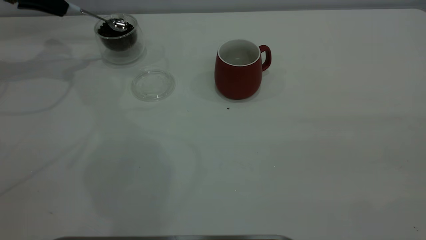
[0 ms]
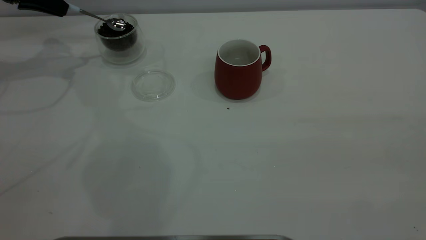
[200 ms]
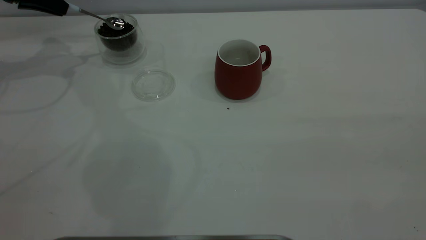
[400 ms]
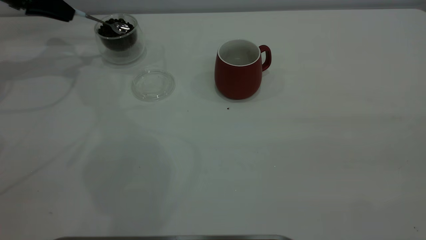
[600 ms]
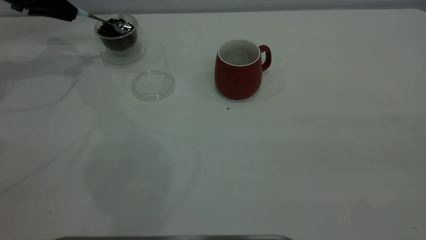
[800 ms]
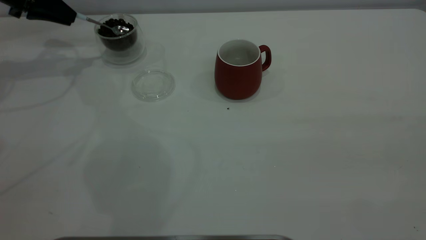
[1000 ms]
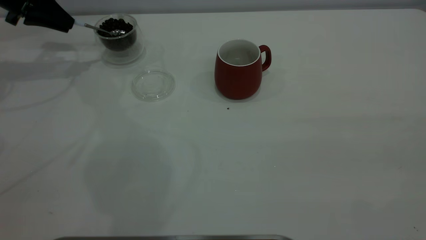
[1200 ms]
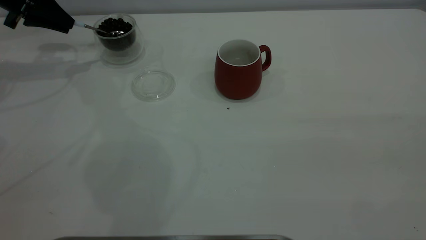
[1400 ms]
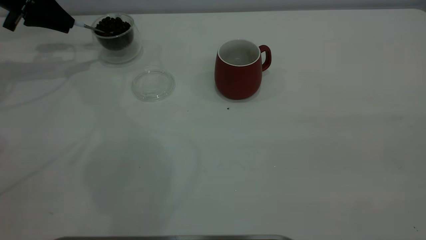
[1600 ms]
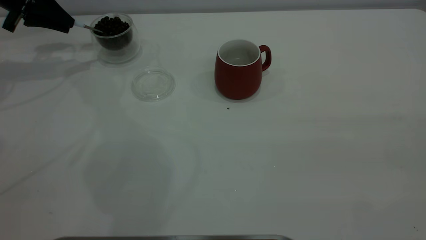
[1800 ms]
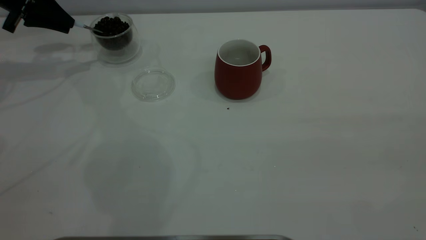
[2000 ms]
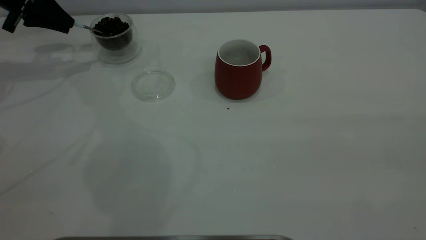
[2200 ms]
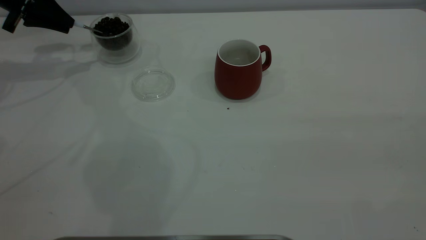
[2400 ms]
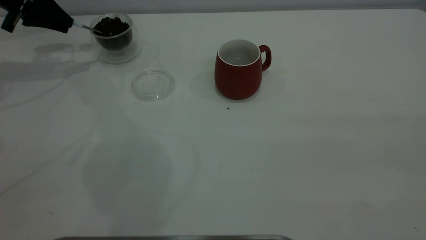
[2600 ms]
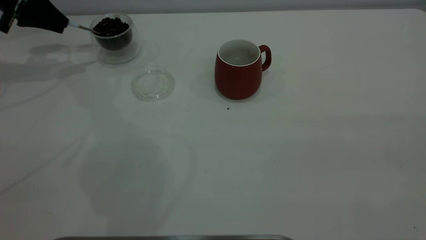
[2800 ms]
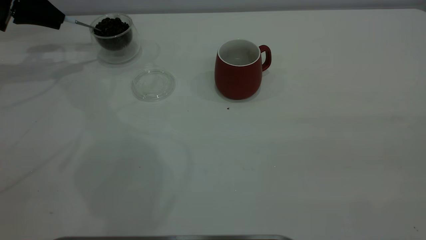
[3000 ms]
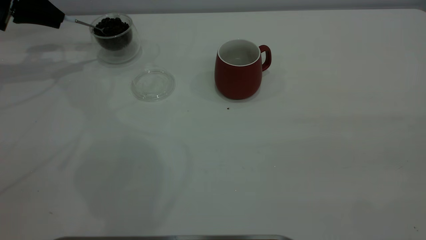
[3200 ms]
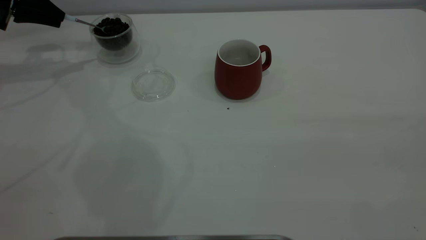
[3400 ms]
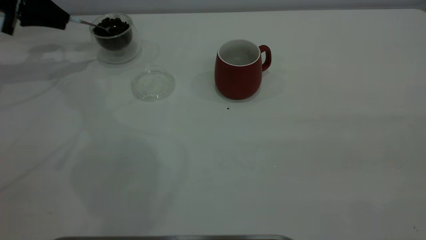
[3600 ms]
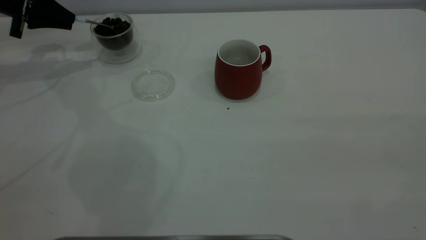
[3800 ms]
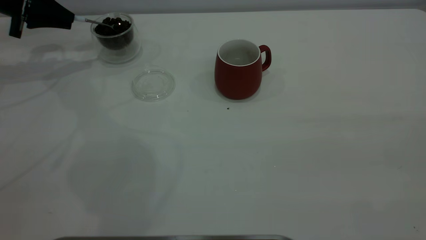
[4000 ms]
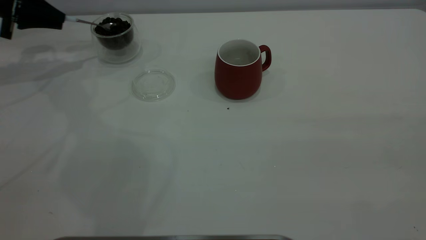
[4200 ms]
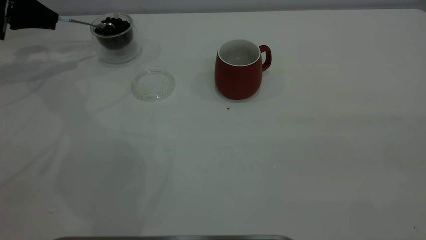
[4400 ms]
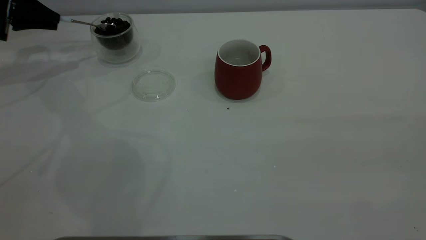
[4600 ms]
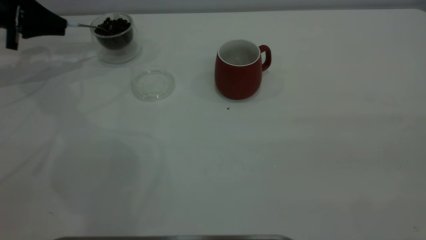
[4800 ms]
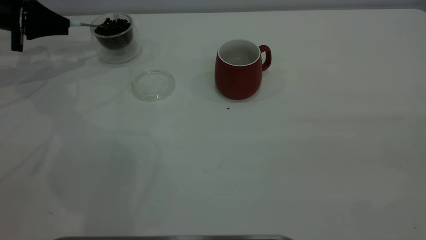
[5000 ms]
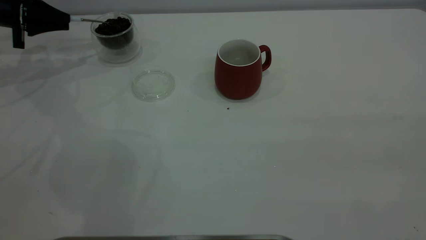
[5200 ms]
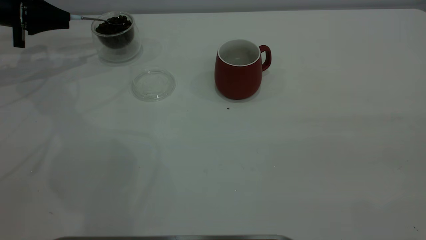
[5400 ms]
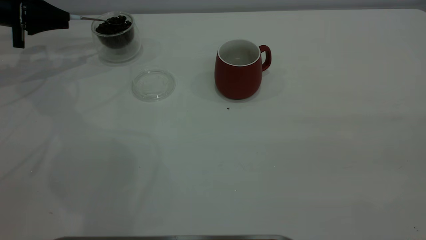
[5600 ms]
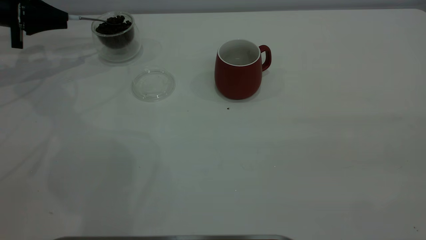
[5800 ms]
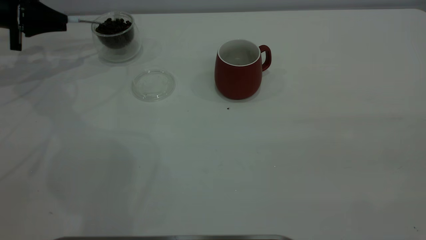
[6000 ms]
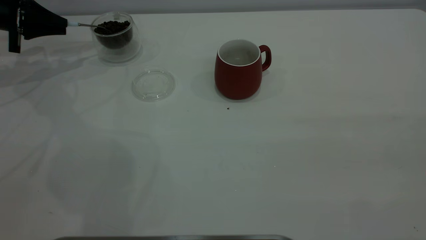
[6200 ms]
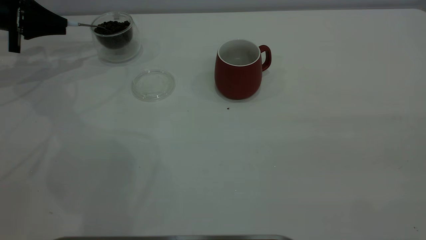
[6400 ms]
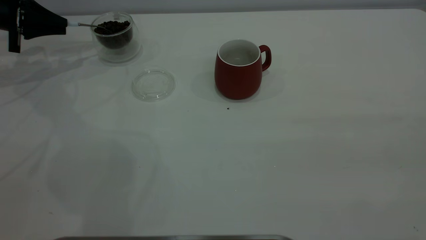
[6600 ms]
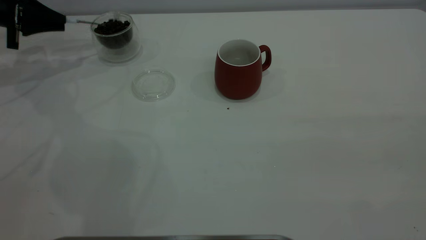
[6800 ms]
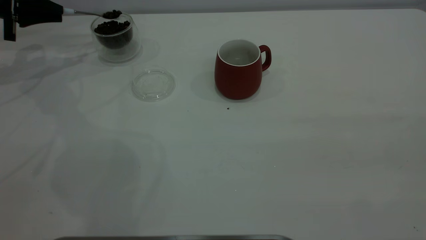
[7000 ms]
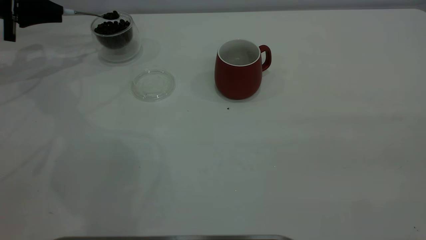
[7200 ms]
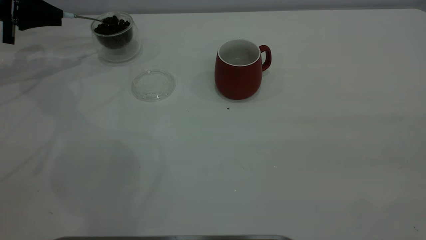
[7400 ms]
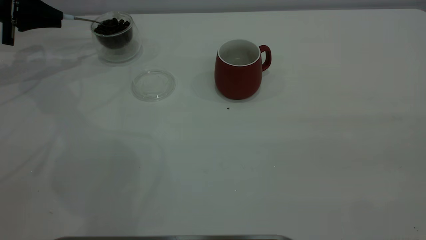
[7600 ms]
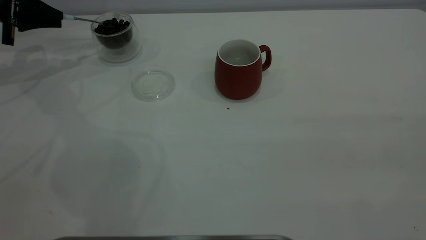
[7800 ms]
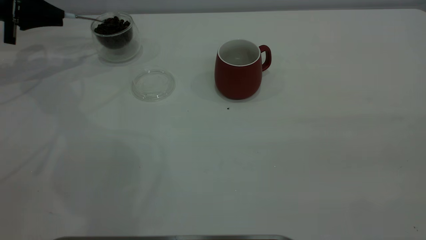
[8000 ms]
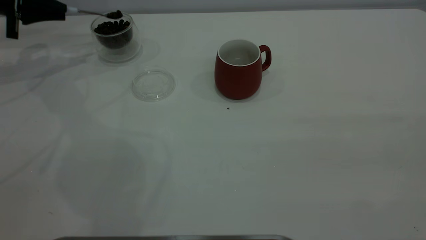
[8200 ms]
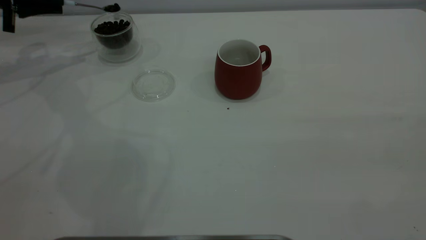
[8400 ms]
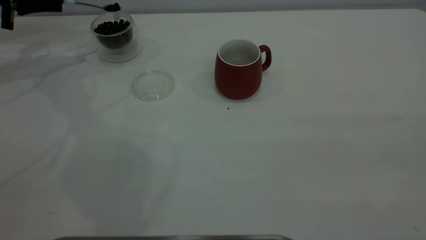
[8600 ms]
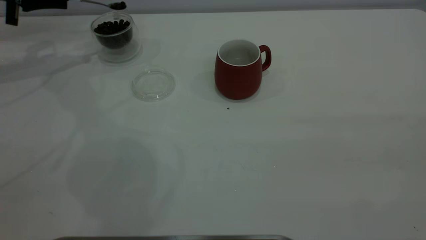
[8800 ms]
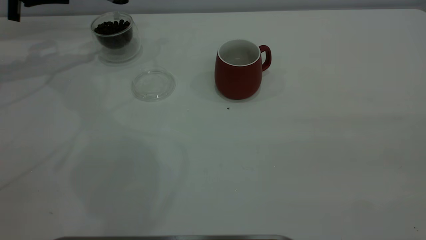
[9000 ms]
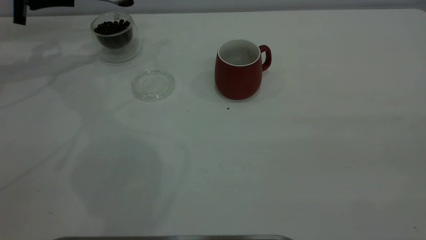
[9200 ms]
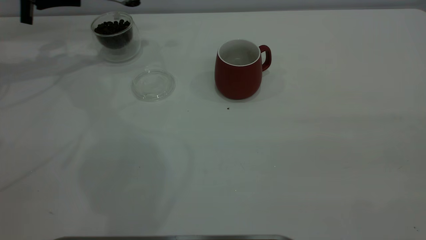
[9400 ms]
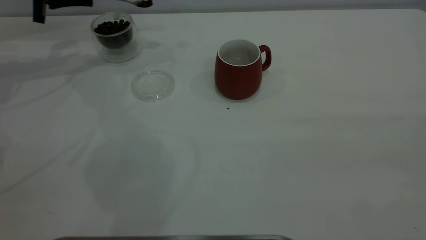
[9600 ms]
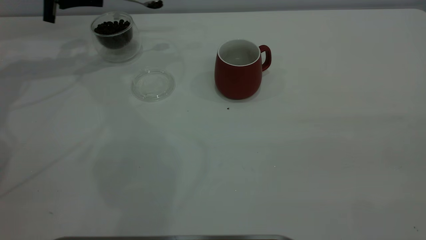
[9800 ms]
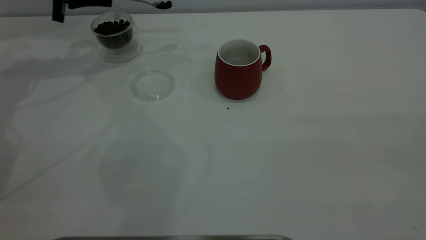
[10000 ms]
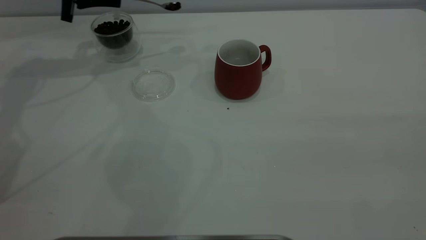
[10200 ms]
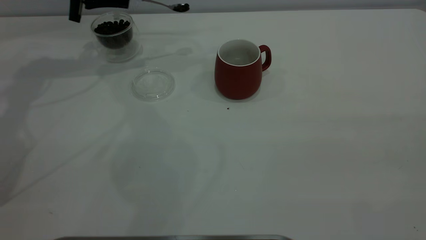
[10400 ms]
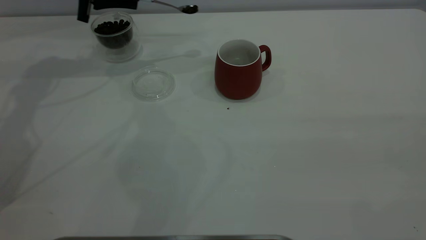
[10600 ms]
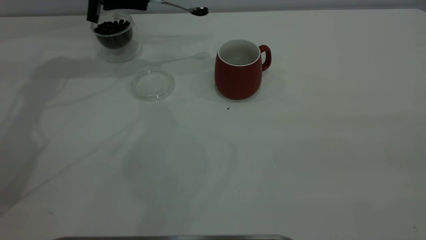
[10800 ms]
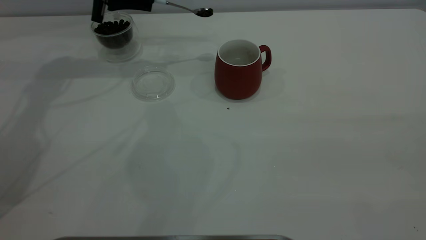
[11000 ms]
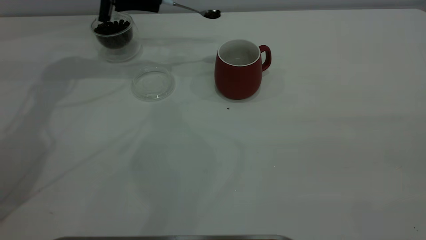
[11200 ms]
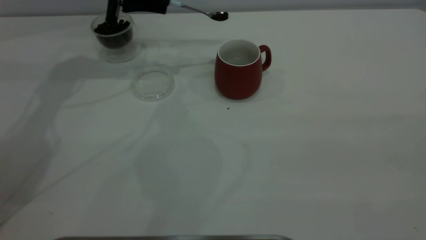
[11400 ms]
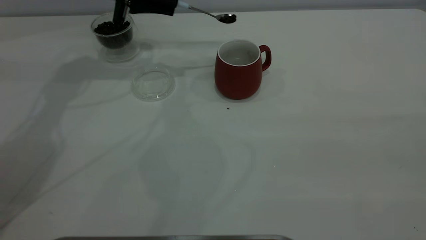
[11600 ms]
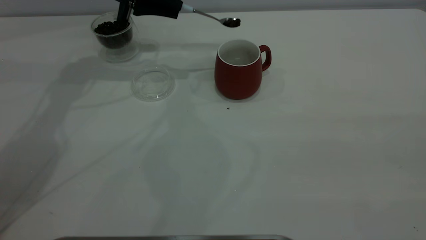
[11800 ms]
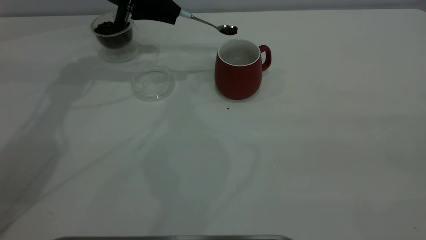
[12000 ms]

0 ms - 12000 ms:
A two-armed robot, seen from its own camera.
Task of the whole recording: the right gripper place the red cup in the center of the table, the left gripper take the blue spoon from the cup lid and scoop out the coffee beans from the coffee cup and put them into the red cup, the left gripper put the spoon back into the cup lid.
4400 ms - 7600 ms: There are only small adjustments of the grippers.
7600 ms - 9000 ms: The left gripper moves about 5 cm.
9000 ms - 10400 ms: The left gripper shifts about 10 cm to the right.
10400 ms - 12000 ms: The left gripper travels to the right by some 10 cm.

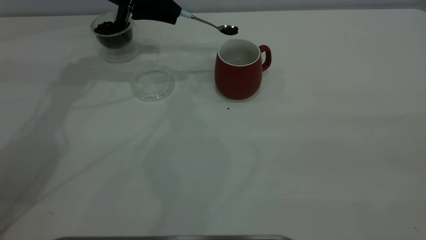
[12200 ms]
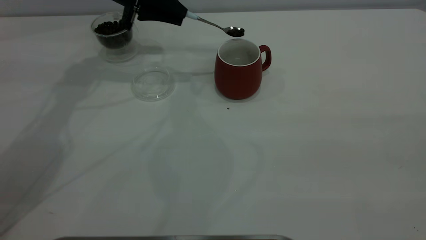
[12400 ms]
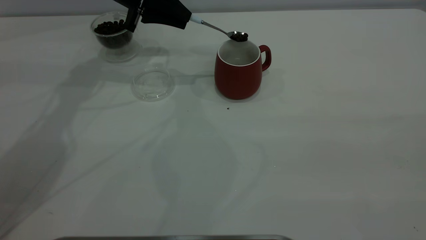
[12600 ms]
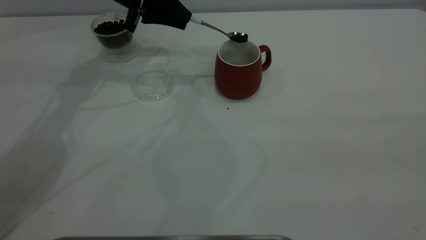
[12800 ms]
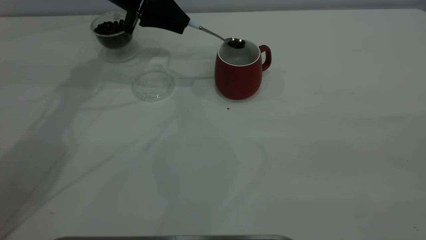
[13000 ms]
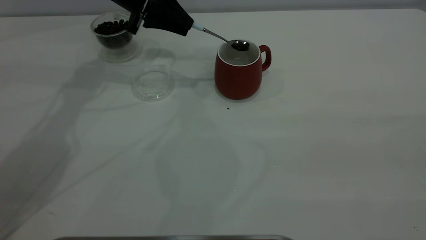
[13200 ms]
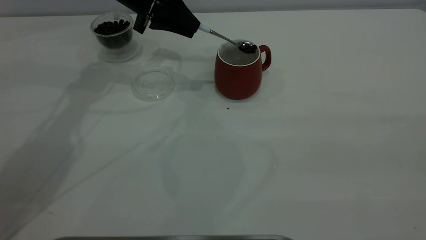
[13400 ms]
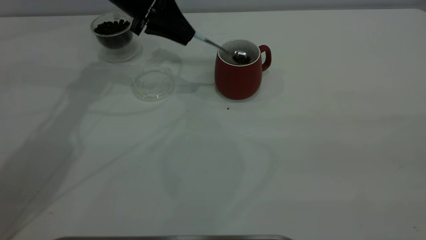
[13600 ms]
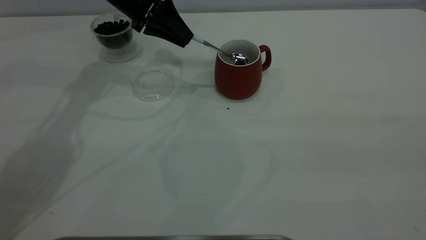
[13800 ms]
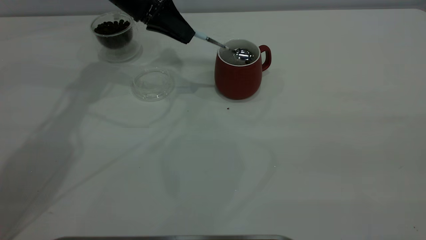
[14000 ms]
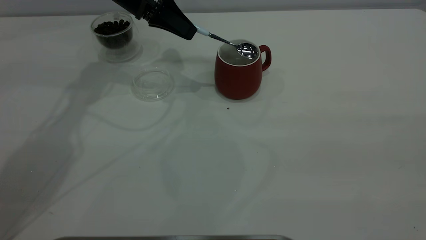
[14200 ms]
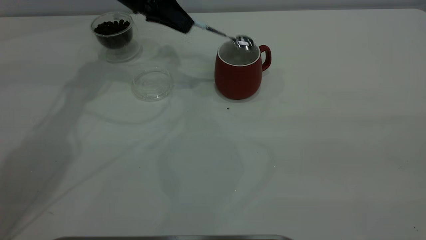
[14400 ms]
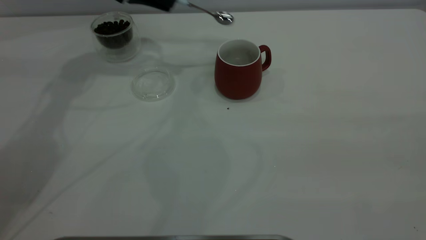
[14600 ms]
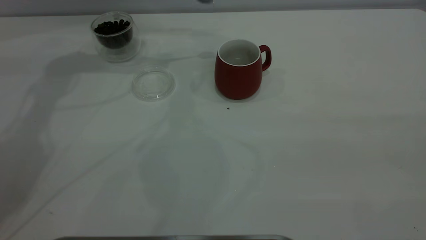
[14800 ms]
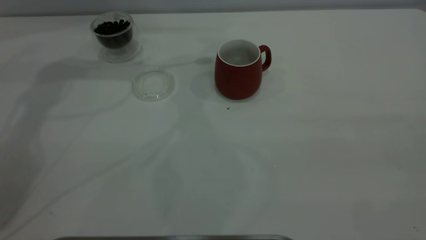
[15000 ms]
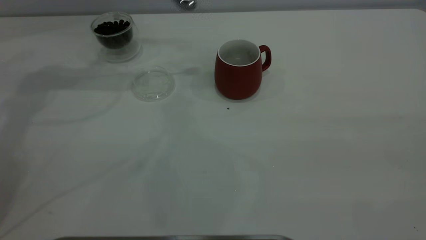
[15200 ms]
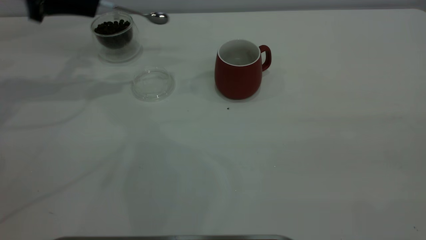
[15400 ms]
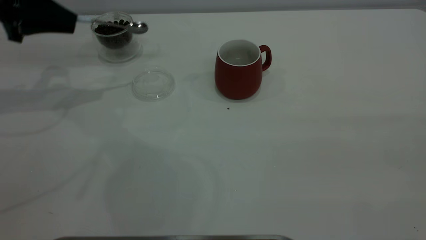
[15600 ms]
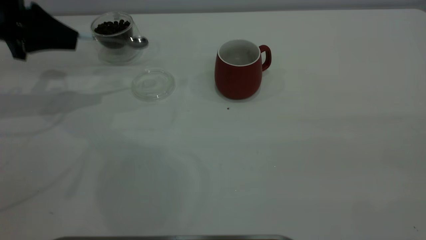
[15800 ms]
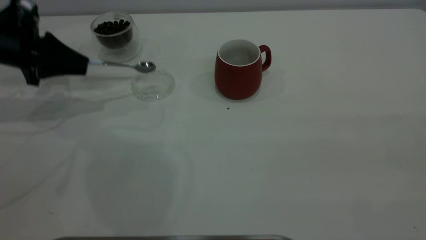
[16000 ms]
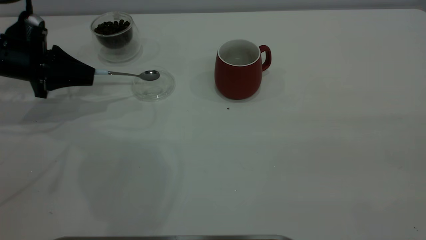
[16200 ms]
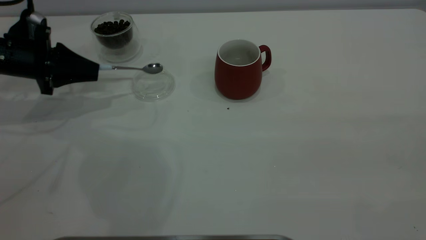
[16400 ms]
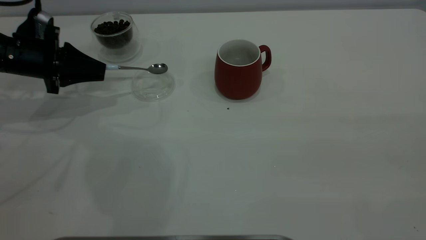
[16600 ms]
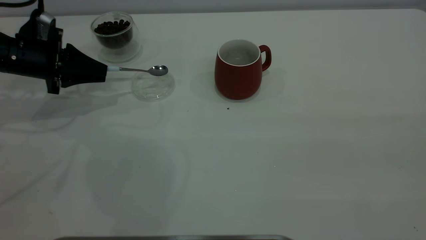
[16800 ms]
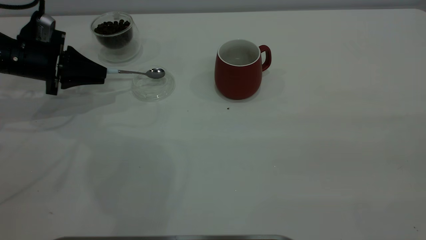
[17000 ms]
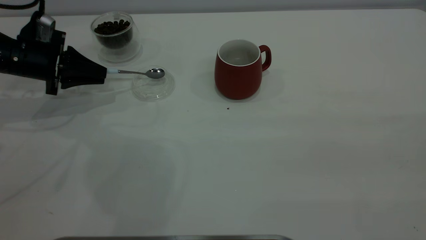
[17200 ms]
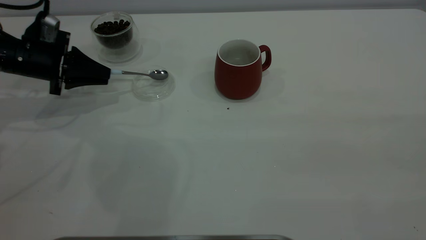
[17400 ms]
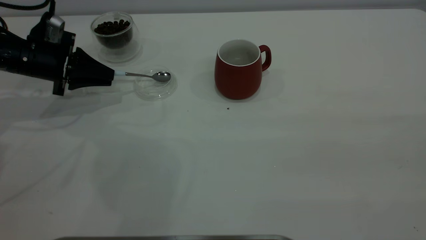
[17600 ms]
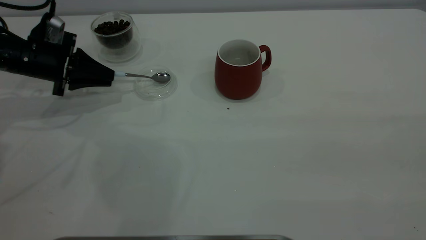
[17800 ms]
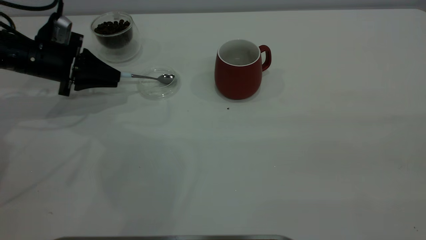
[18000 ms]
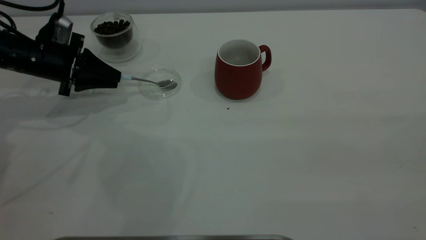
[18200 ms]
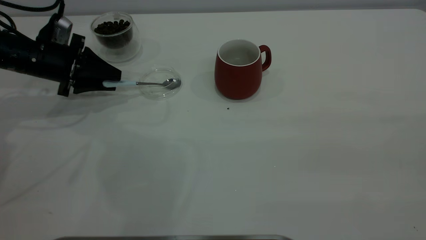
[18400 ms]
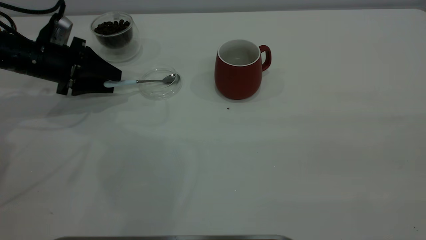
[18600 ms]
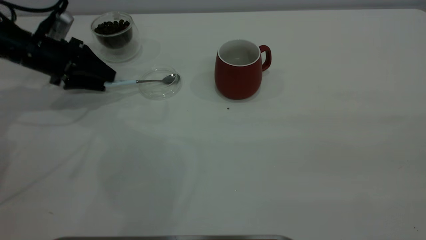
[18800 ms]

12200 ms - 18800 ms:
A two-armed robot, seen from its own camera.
Task of the whole recording: the right gripper place the red cup in the center of the table, the left gripper take the blue spoon from the cup lid and scoop out the coffee beans from the coffee cup and put them into the red cup, the left gripper put the spoon back into the cup lid.
Step, 12200 ms - 14400 ms: Scoop a spoonful of beans into the cup.
13800 ms - 15400 ms: The left gripper moves to the left, roughly 15 cm.
15400 ms - 17200 ms: The left gripper shifts some 10 cm downward.
17200 ms - 18800 ms: The left gripper opens up.
